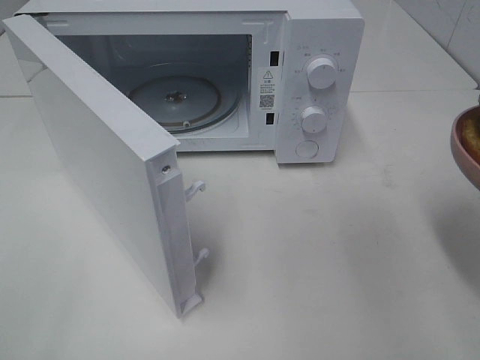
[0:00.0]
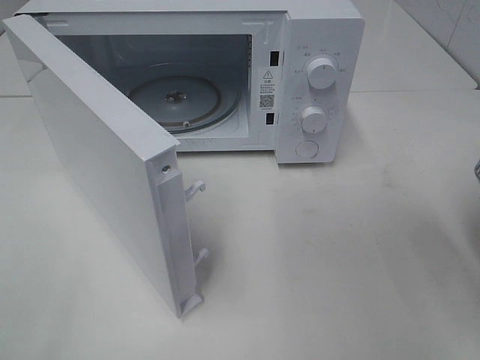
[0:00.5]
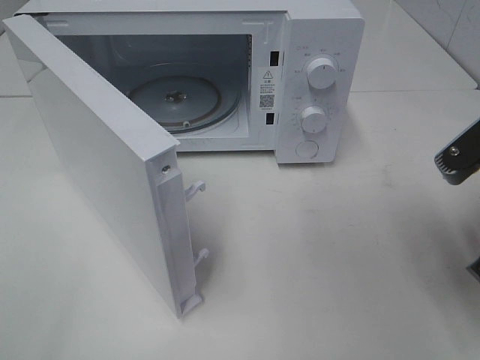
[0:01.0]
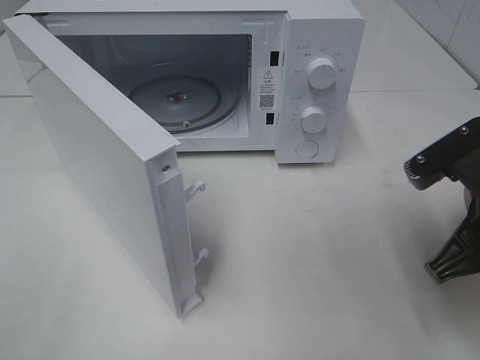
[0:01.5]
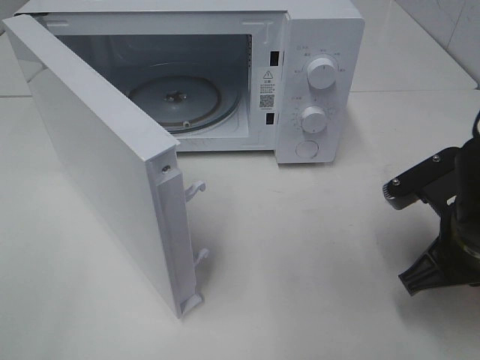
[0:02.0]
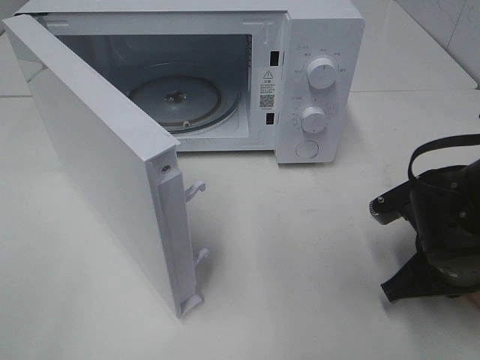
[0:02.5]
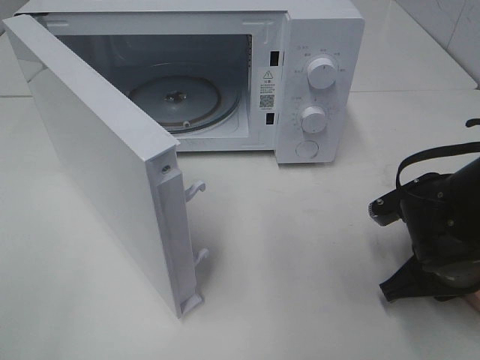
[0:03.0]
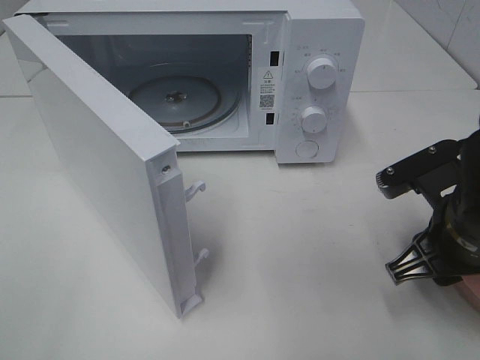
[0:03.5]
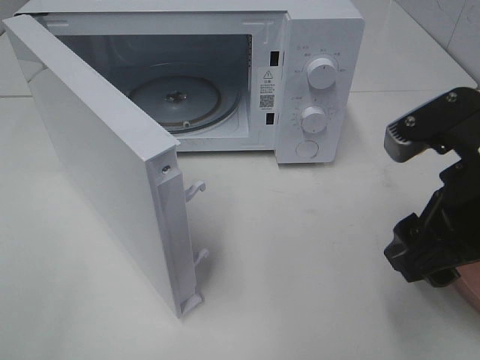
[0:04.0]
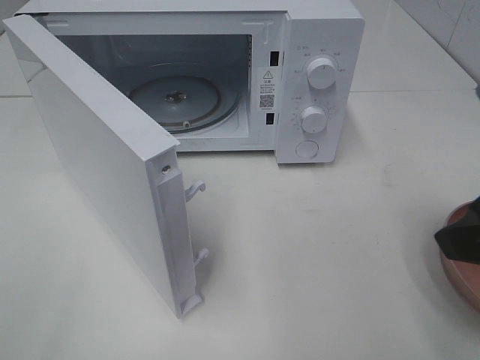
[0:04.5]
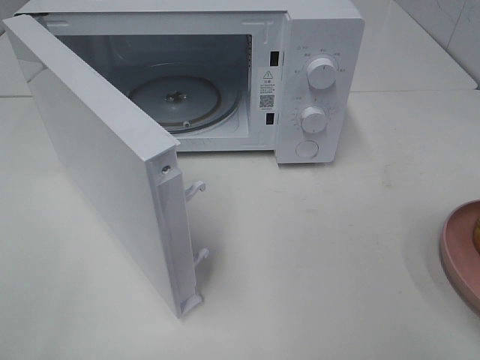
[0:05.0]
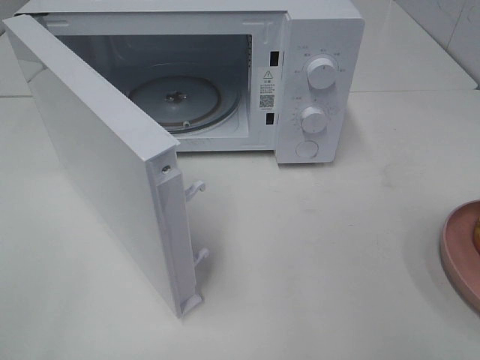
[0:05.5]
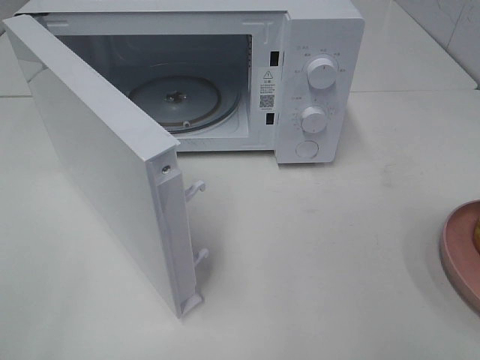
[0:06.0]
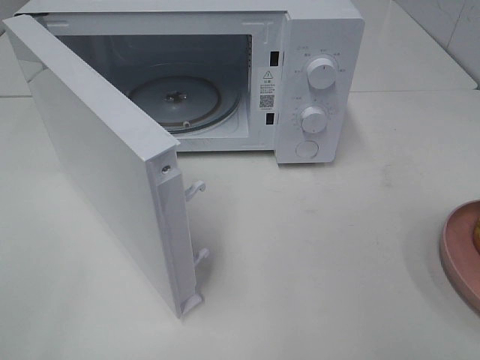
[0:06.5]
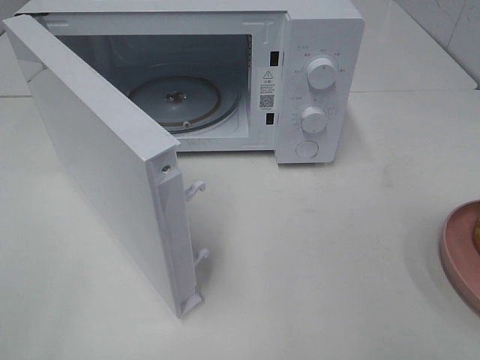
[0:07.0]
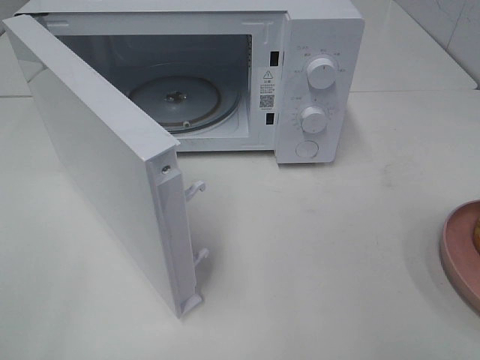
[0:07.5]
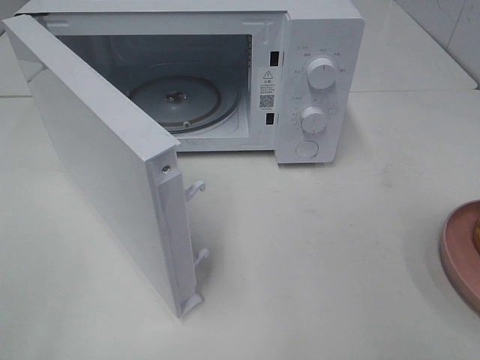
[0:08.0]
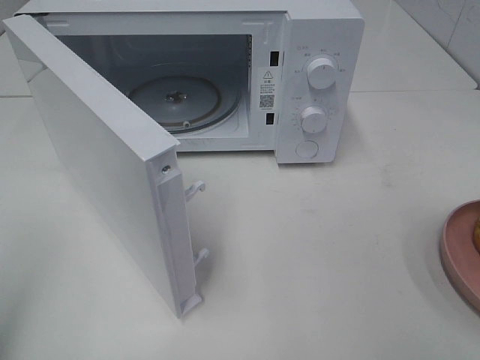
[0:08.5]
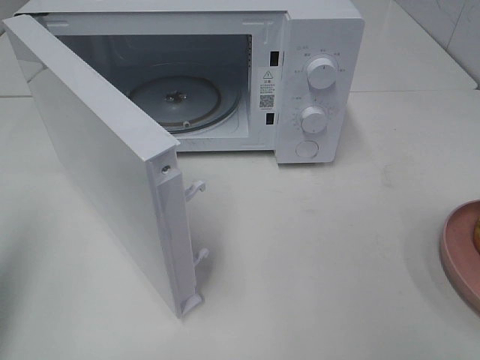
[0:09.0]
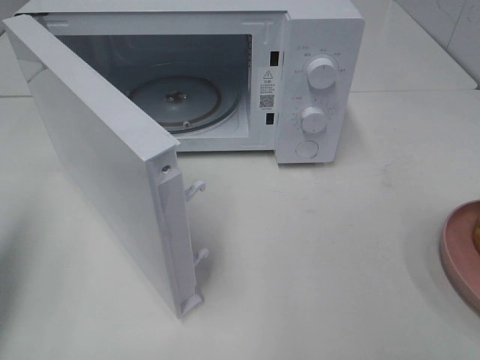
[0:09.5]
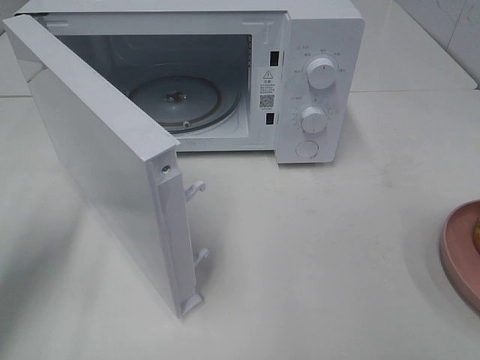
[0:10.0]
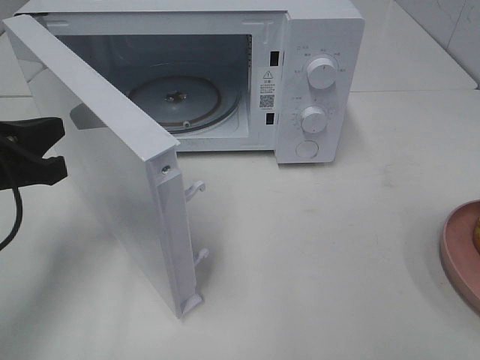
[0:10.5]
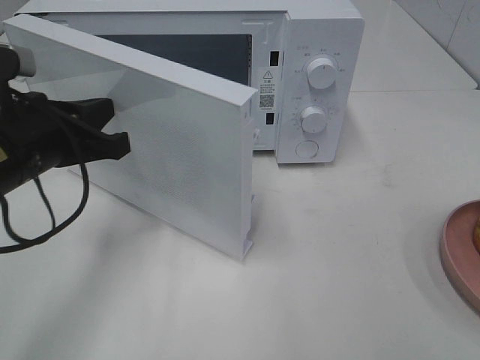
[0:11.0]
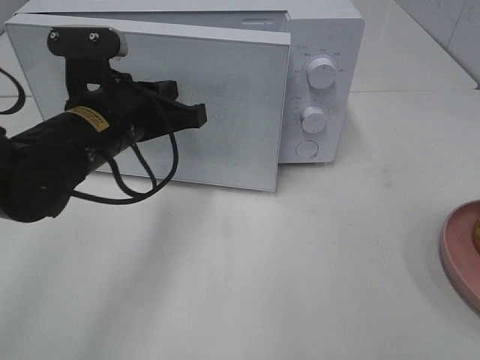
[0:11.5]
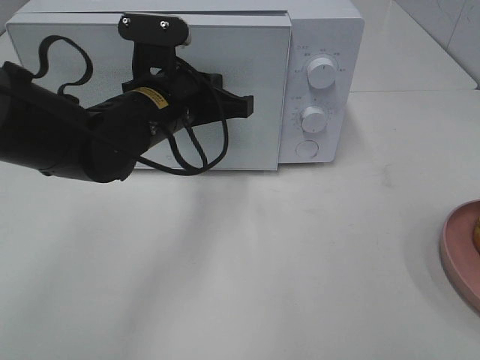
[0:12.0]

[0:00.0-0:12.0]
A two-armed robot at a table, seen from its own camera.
Task of the whole recording: Heat the burger.
Step, 0.0 to 3.0 s: Right hand: place the plate on the table.
0.0 to 2.0 s: The right gripper travels downward and forward by roughly 15 cm.
2.0 to 4.0 s: The right gripper heads upward, covering approximately 10 cm, and opens its fingers.
4.0 to 6.0 s: The right gripper is displaced backward and to the right by roughly 20 cm.
8.0 to 10.0 s: The left gripper travels forward and downward by approximately 20 cm, and closes.
10.0 to 12.0 s: The left gripper moves to the right and forward, about 25 cm.

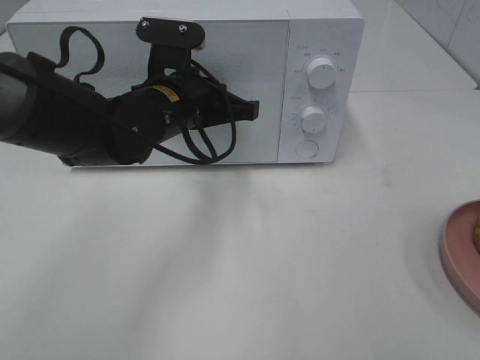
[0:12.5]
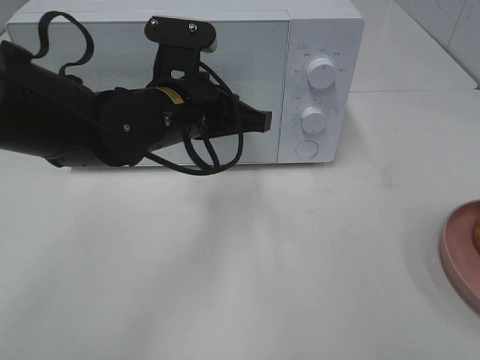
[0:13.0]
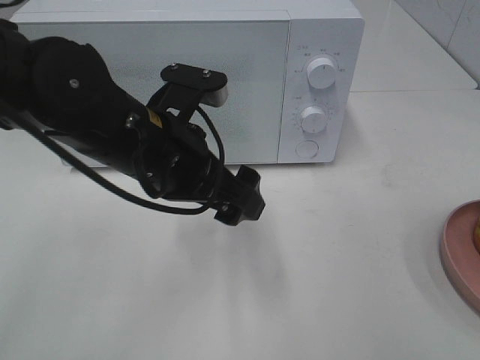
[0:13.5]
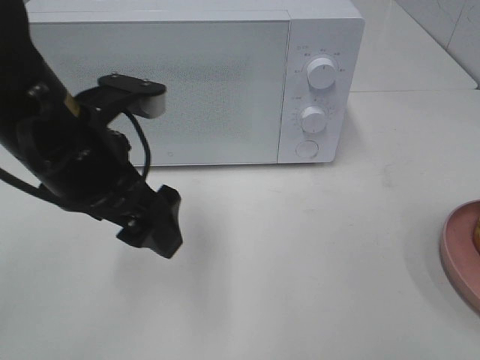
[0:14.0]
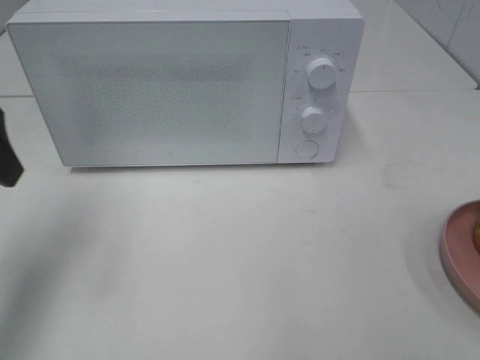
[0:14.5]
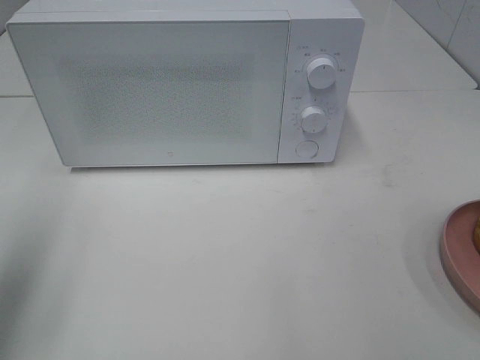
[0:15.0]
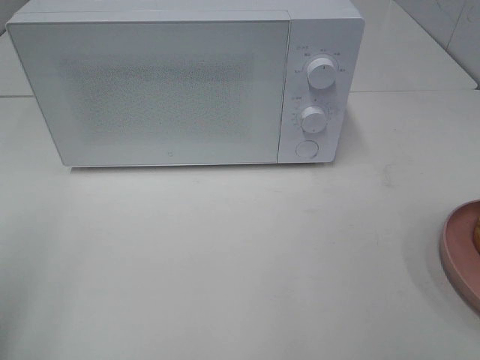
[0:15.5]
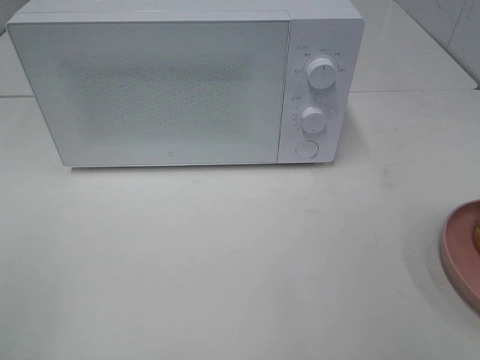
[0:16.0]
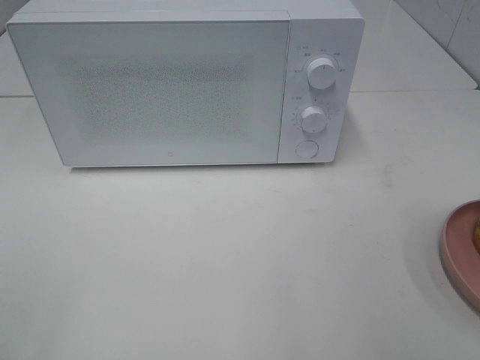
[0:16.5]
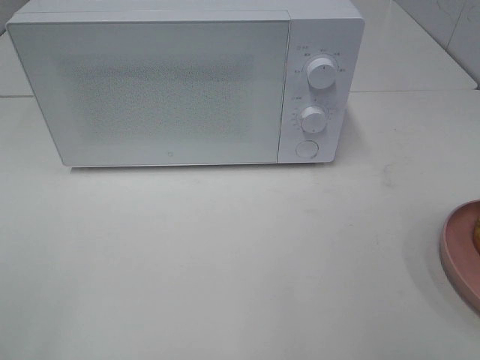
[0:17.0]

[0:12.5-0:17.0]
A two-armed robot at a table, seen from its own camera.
Task of the whole recording: Heat the burger.
12.5 to 14.5 s: The left gripper heads to the left, upward and backward, covering approximately 25 cm, and opens up.
14.5 to 17.0 s: The left gripper shifts approximately 25 cm backward.

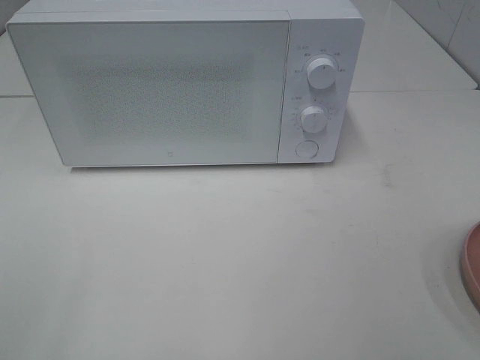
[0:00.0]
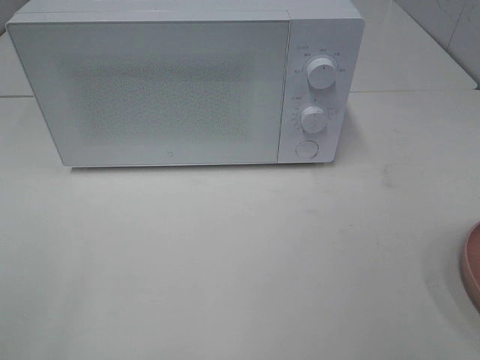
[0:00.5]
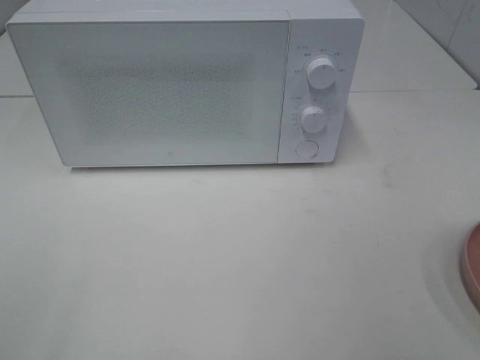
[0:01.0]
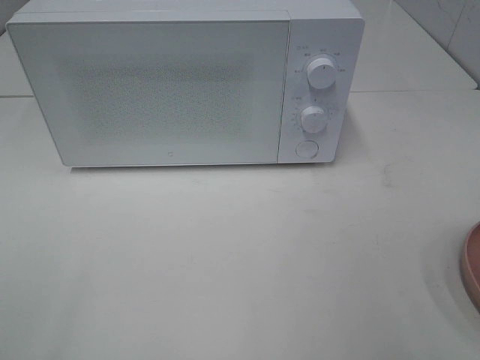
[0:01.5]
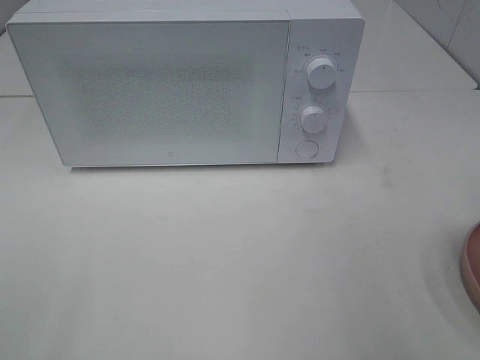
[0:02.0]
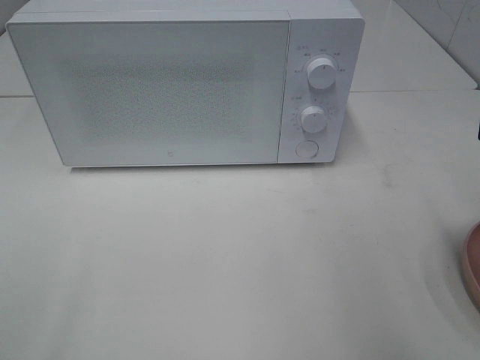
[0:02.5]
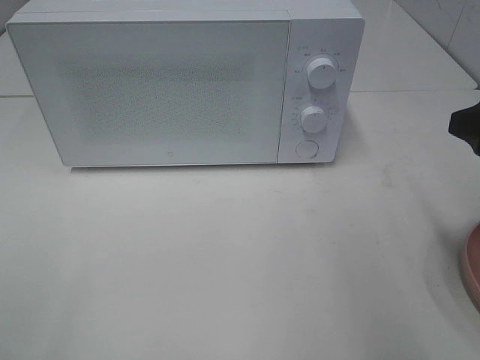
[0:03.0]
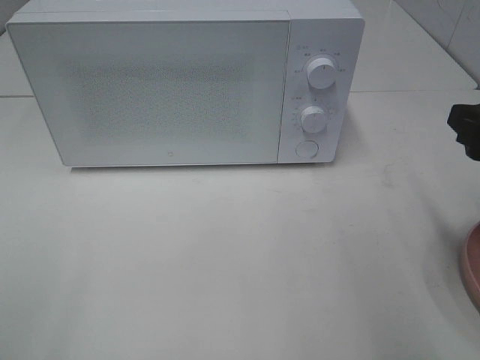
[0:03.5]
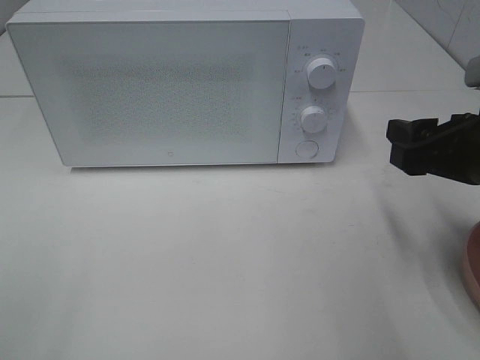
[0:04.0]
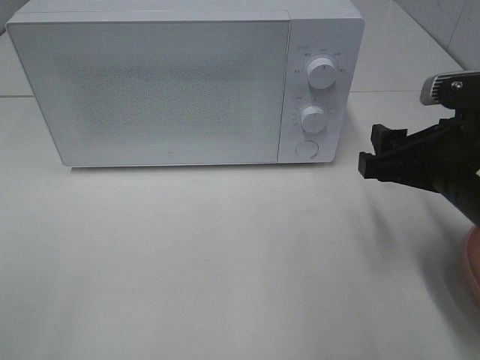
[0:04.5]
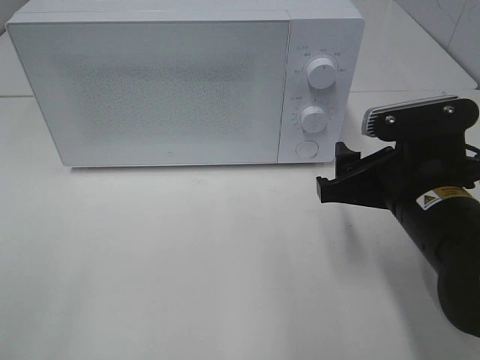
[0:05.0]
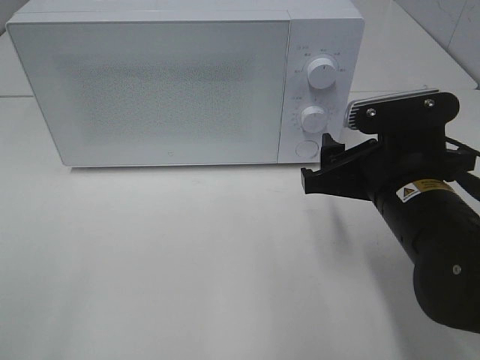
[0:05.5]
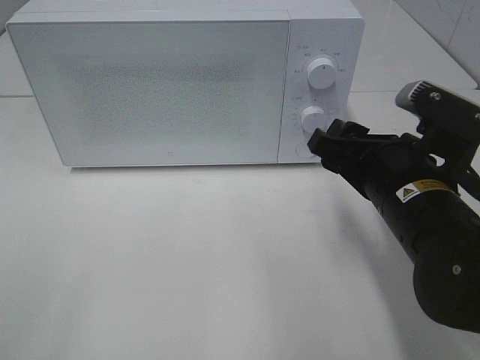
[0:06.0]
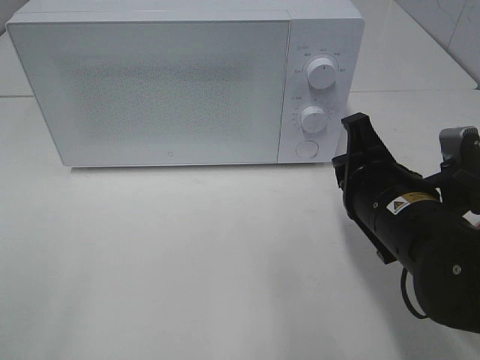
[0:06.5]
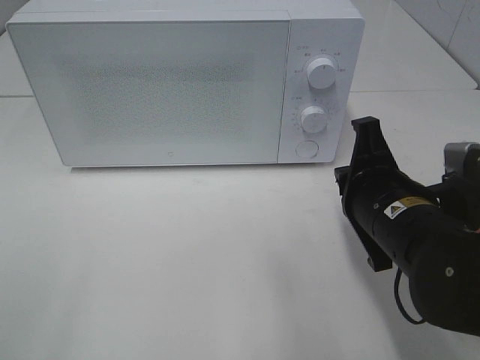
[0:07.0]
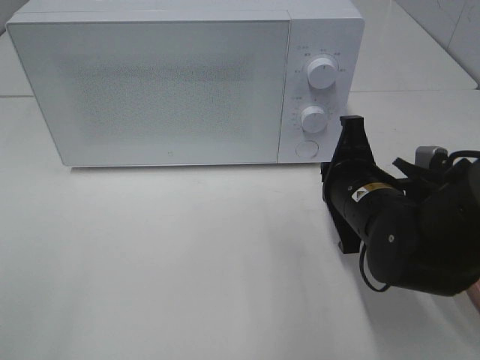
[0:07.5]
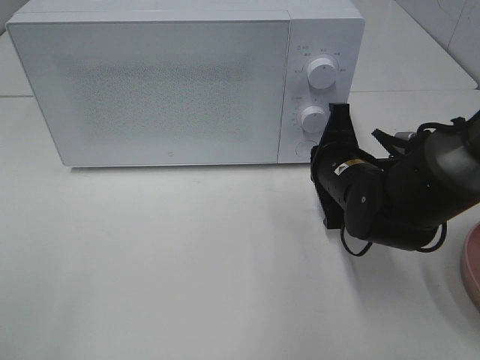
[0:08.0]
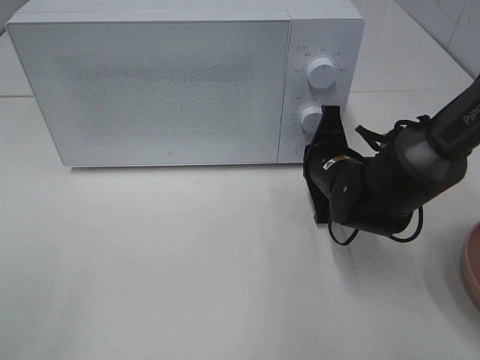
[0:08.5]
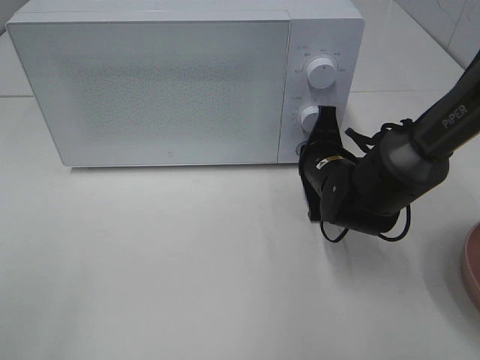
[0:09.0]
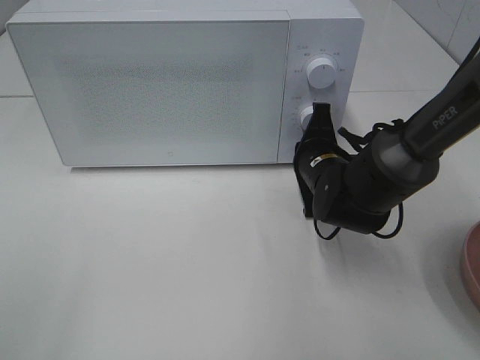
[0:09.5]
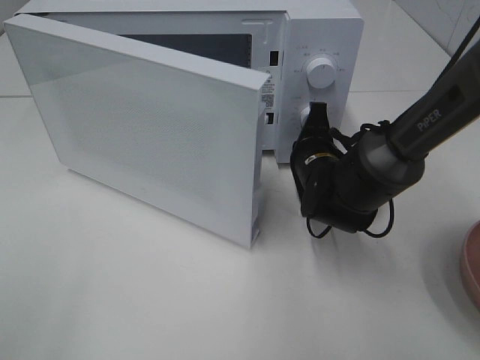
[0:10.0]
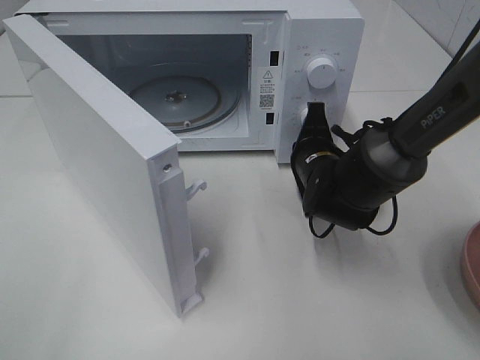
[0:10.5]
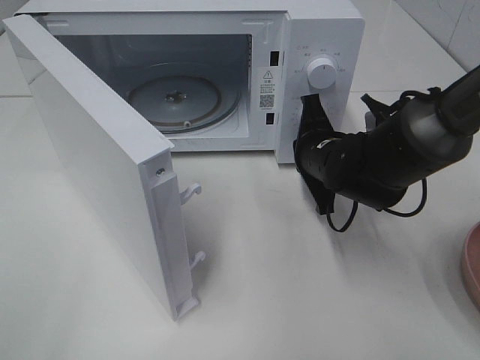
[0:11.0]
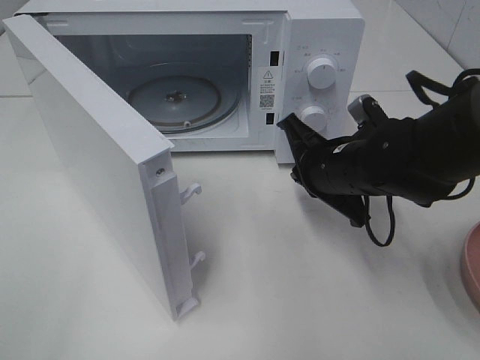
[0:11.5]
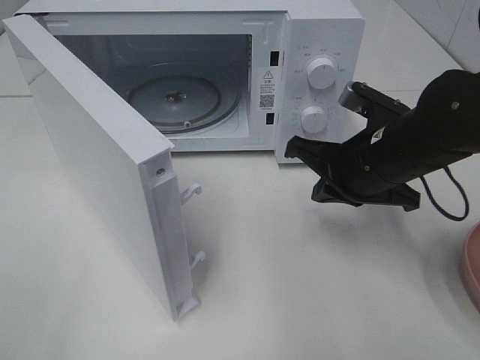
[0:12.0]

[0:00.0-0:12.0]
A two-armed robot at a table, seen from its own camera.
Task of the whole recording: Heat the burger.
Step, 0.0 to 11.0 s: Right hand: press the switch.
2.0 to 4.0 s: The right gripper heads forward and downward, covering some 15 cm.
4.0 to 6.0 s: The right gripper is displaced to the left by roughly 10 cm.
6.0 to 8.0 s: The right gripper is displaced forward and downward by some 10 cm, and closes its fingers.
8.0 to 10.0 s: The right gripper ends up about 5 cm from where it was.
10.0 to 12.0 s: The right gripper moves upward and backward, about 10 cm.
